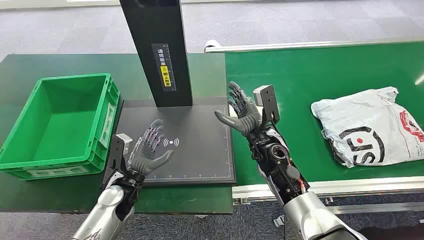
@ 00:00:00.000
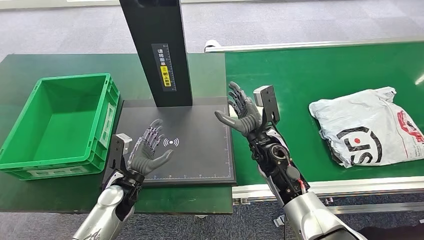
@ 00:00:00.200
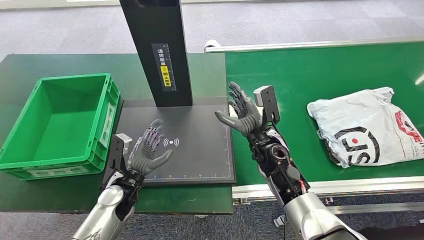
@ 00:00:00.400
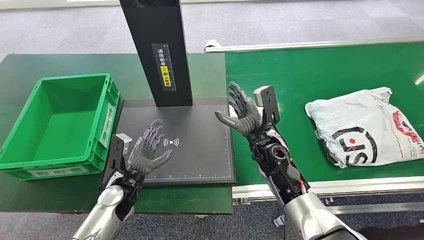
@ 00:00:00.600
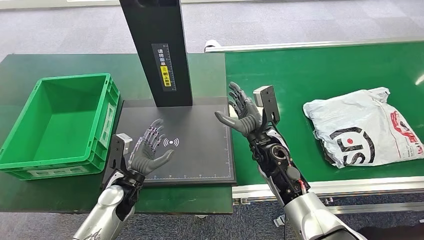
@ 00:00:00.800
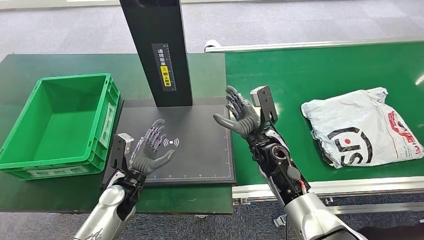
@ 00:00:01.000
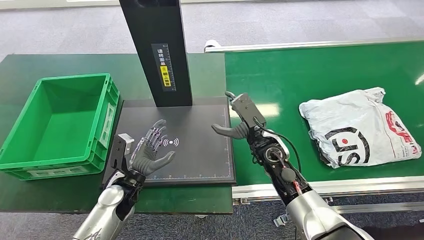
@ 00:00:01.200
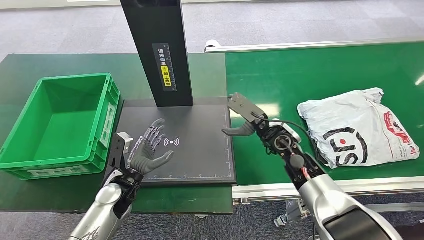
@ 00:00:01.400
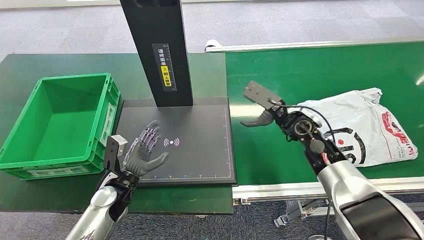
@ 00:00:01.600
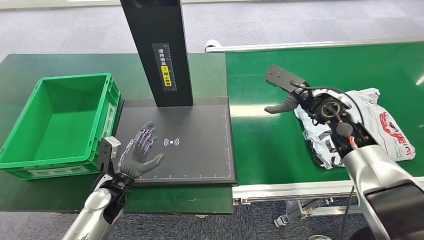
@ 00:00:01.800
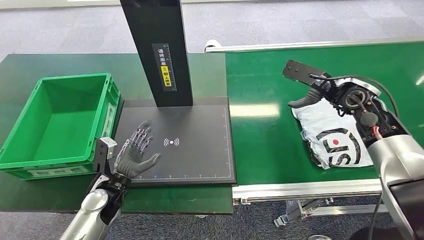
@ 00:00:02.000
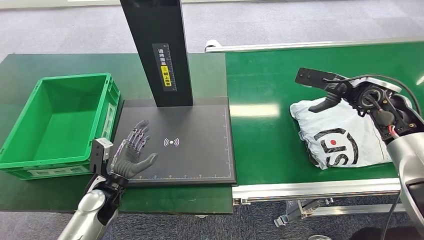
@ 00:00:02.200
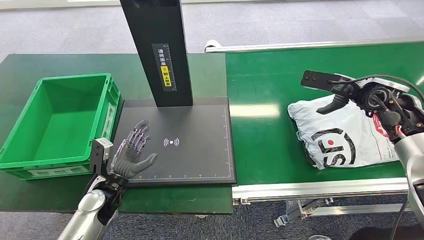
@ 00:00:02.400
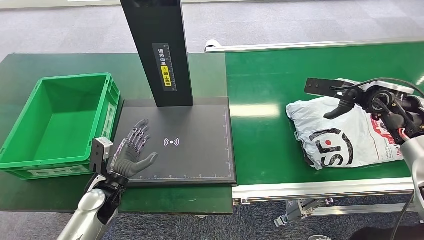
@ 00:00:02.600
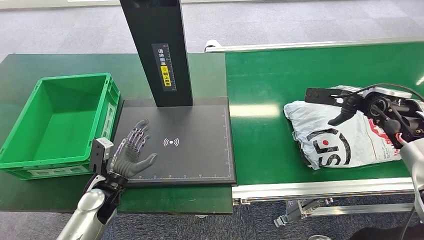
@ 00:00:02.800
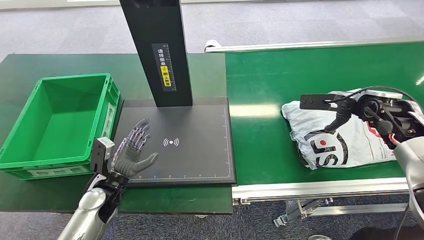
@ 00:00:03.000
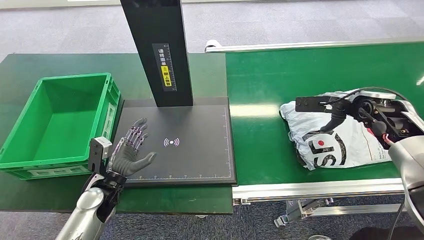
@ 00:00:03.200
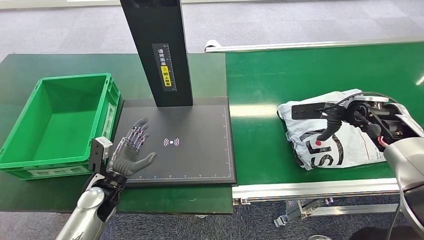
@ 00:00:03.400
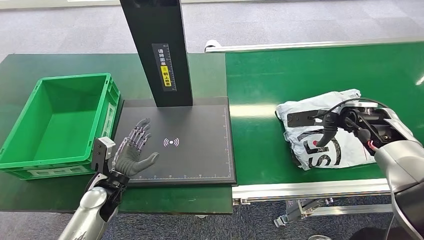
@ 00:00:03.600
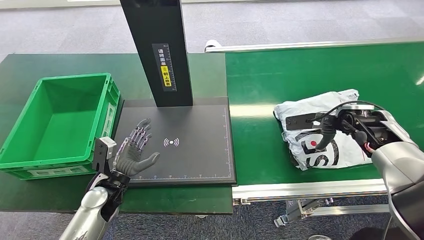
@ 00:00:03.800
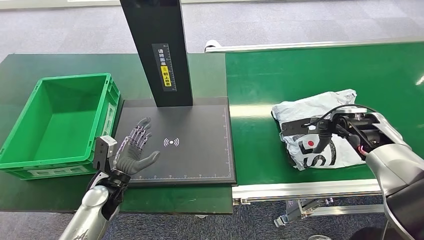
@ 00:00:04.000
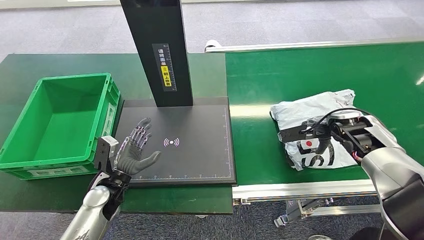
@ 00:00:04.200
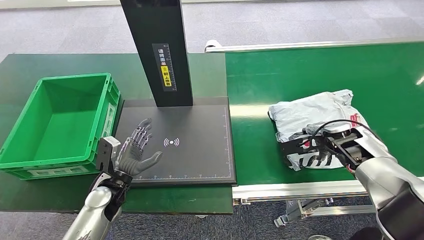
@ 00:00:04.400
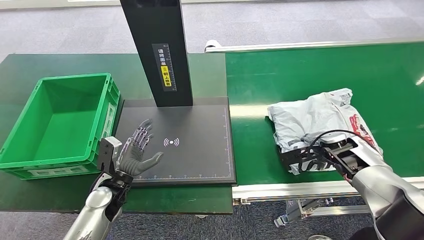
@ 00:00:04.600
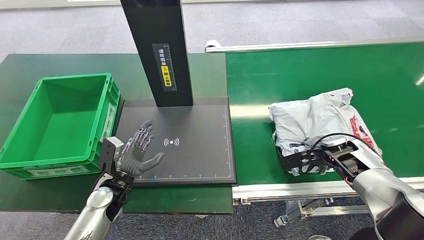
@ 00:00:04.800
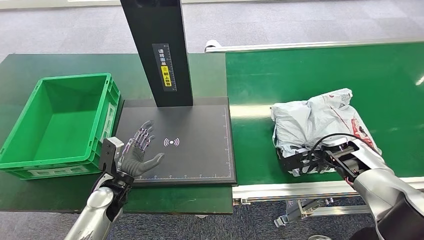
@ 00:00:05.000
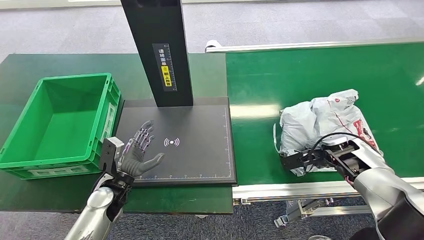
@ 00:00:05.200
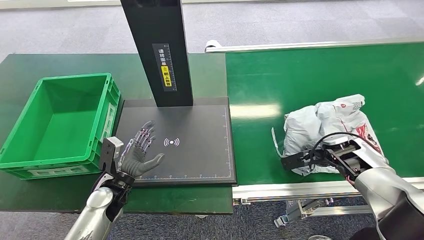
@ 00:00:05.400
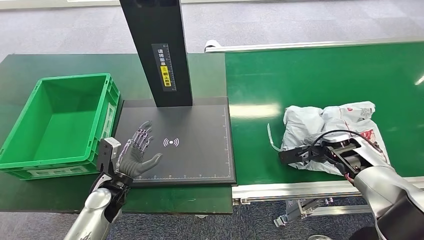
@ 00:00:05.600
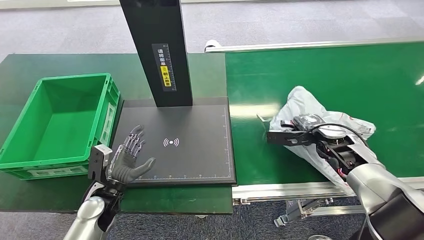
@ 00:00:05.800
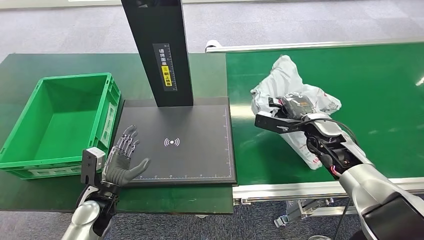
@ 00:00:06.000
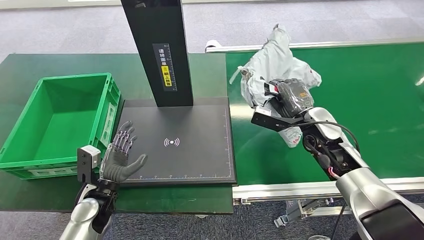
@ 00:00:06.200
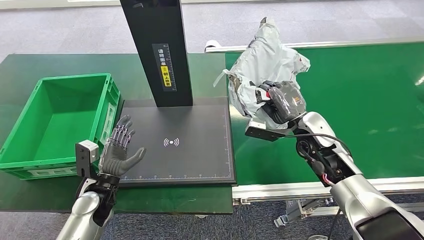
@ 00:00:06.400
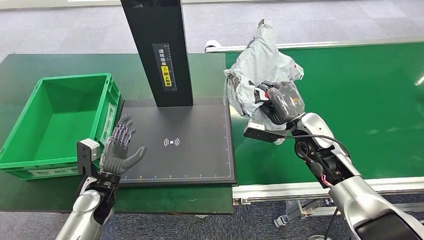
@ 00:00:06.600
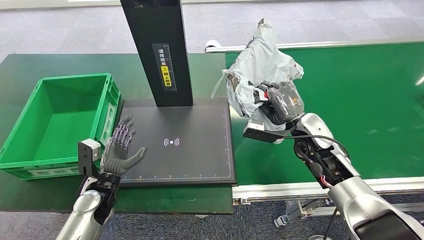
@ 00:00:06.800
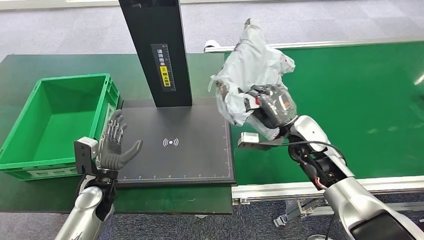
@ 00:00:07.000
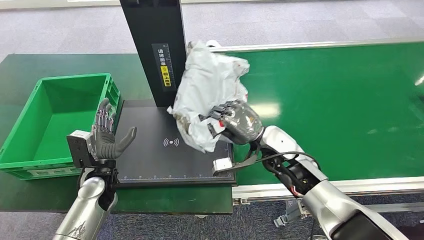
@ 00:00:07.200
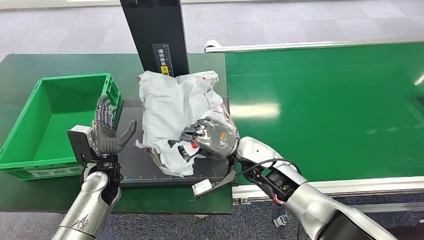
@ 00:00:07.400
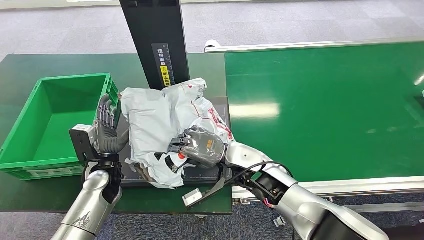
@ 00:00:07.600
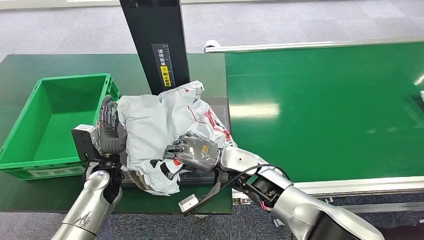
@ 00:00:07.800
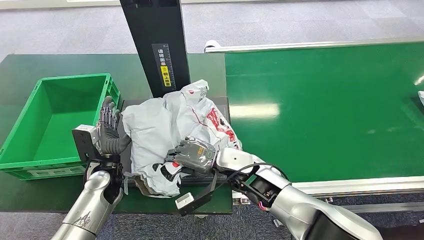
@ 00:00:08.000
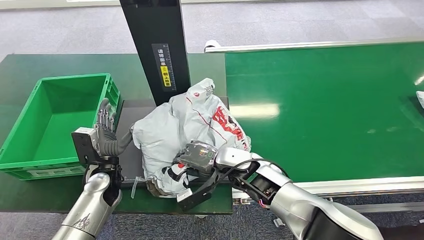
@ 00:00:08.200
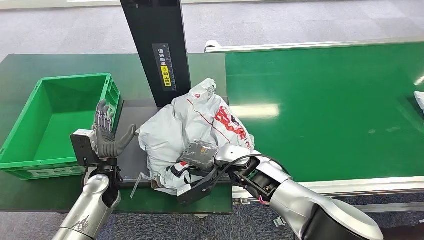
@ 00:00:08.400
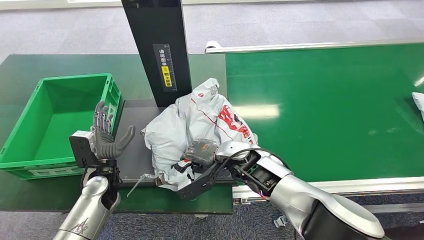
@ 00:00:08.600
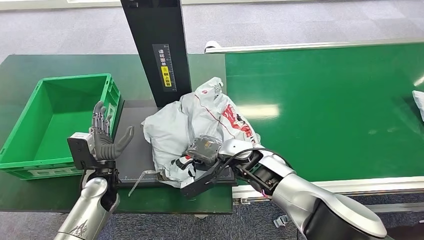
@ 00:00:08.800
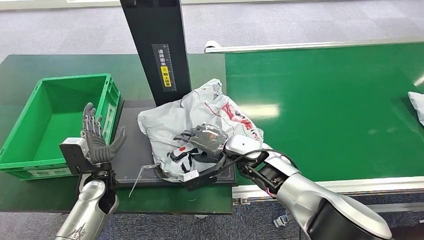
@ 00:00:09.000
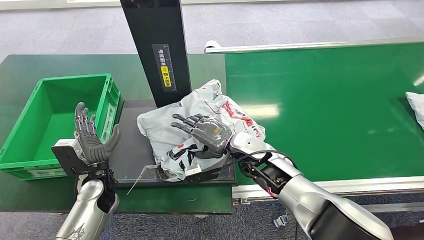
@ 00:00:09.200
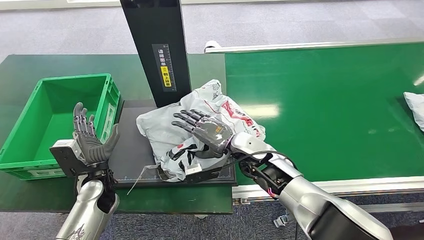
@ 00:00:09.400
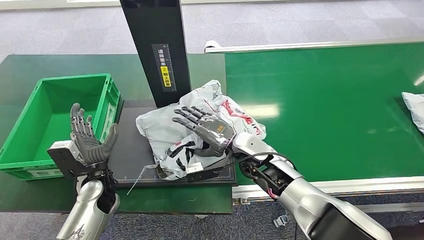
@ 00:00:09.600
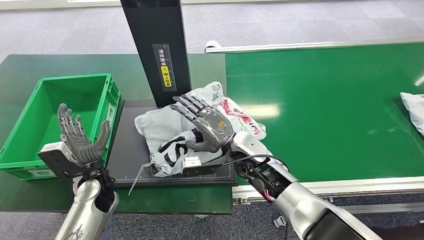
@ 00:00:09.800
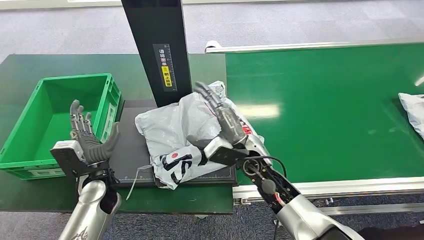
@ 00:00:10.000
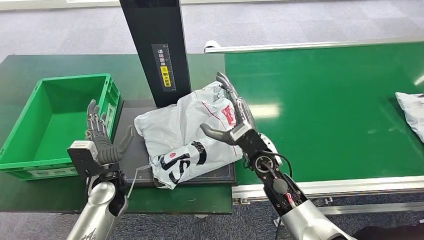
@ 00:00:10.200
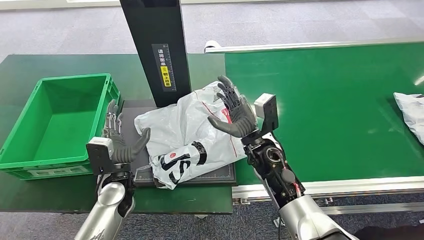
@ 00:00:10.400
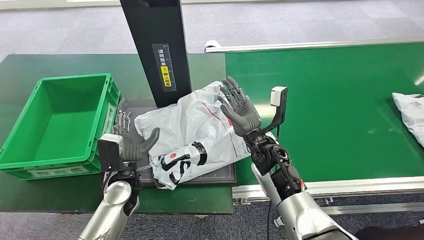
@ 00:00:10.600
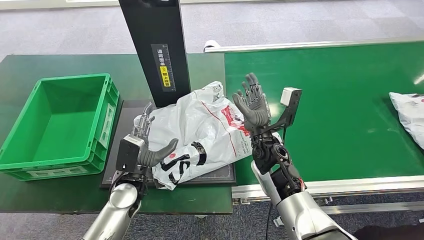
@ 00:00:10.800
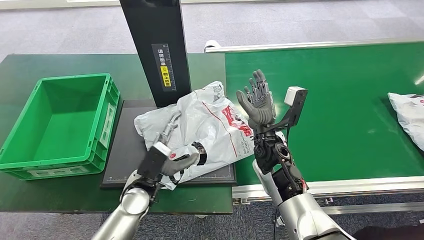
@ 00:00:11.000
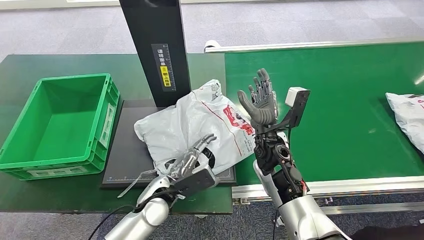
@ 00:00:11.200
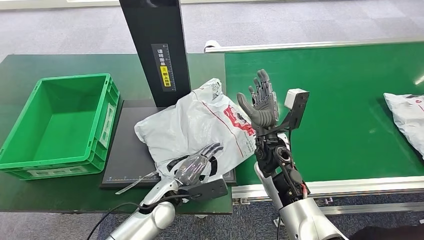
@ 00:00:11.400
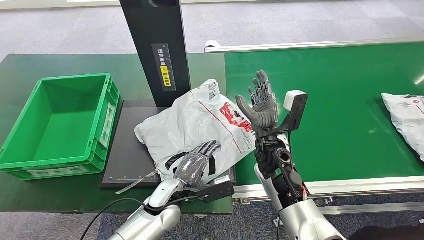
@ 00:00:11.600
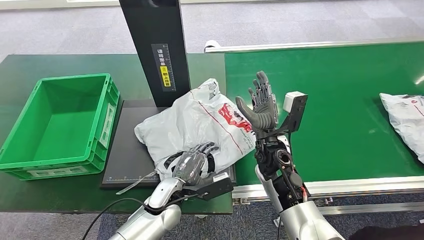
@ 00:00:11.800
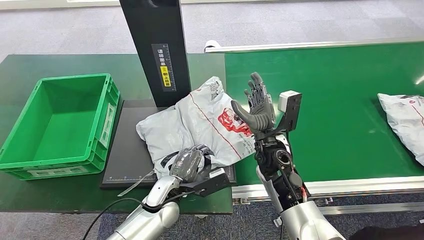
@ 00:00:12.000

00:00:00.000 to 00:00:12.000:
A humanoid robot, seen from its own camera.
Step, 00:00:00.000 to 00:00:06.600: Pick up the package from the conveyor belt.
Step, 00:00:06.800 to 00:00:10.400: Place the package onto the inbound machine.
00:00:01.600 to 00:00:03.000: The right hand travels to the right and upward by roughly 20 cm.
00:00:03.000 to 00:00:04.400: The right hand moves downward, some 10 cm.
00:00:04.400 to 00:00:06.000: The right hand goes roughly 5 cm to the left.
00:00:09.000 to 00:00:10.400: The left hand goes some 5 cm to the right.
00:00:10.400 to 00:00:12.000: The left hand shifts approximately 10 cm to the right.

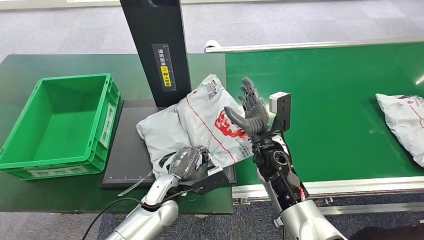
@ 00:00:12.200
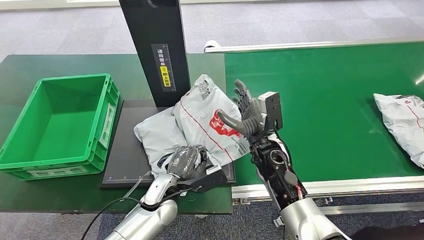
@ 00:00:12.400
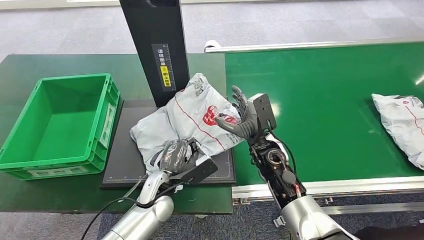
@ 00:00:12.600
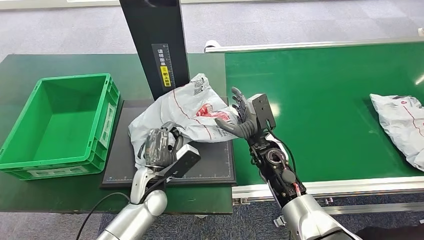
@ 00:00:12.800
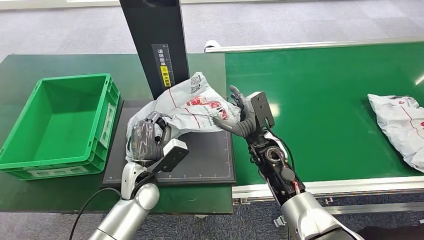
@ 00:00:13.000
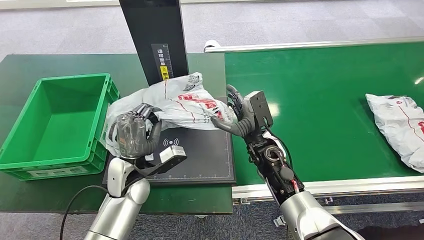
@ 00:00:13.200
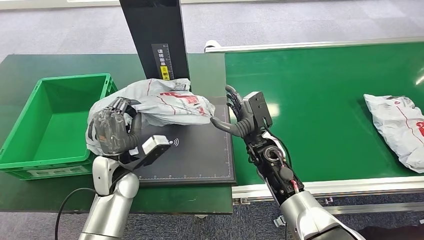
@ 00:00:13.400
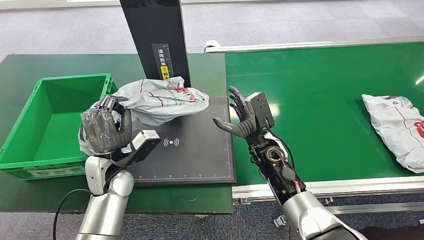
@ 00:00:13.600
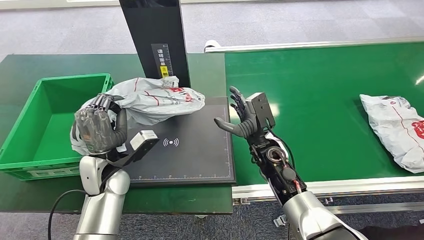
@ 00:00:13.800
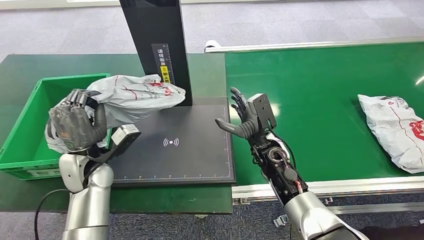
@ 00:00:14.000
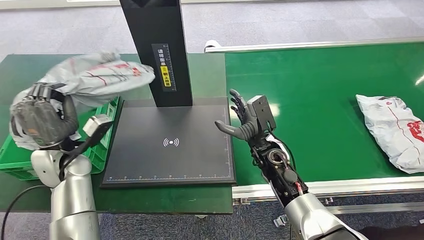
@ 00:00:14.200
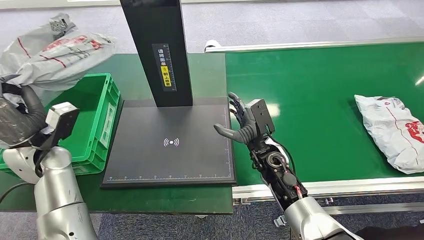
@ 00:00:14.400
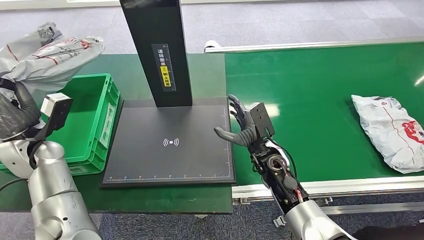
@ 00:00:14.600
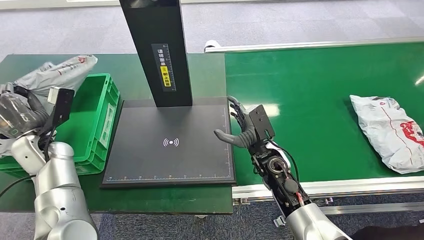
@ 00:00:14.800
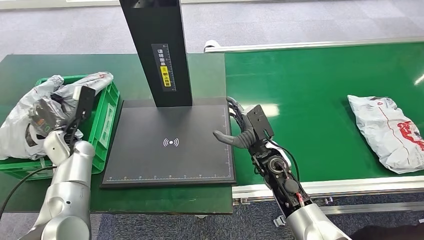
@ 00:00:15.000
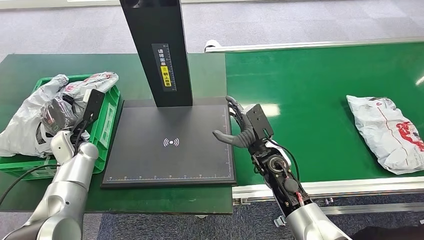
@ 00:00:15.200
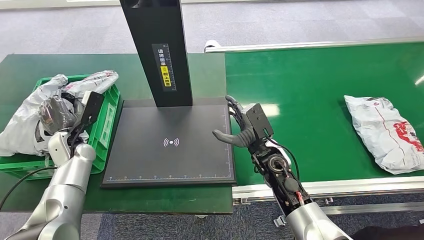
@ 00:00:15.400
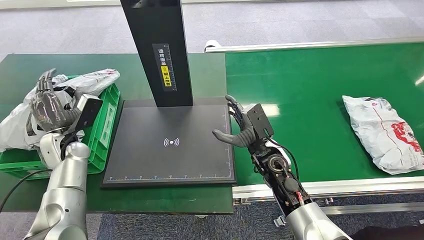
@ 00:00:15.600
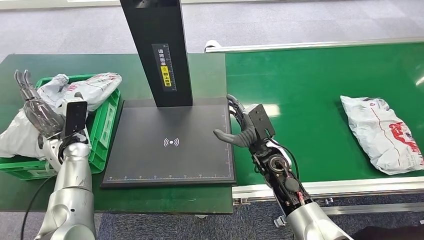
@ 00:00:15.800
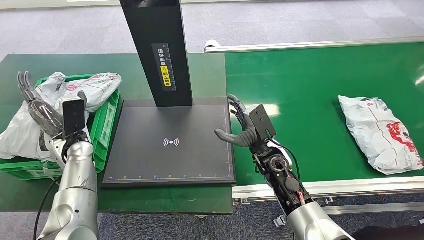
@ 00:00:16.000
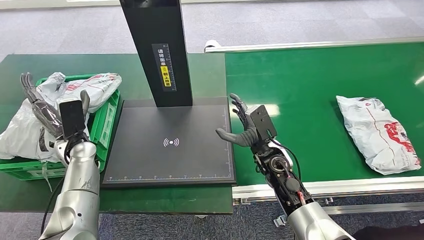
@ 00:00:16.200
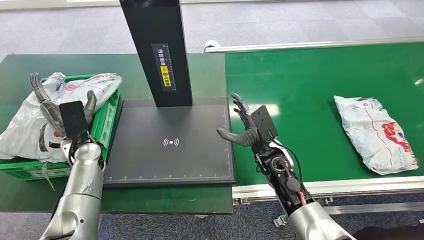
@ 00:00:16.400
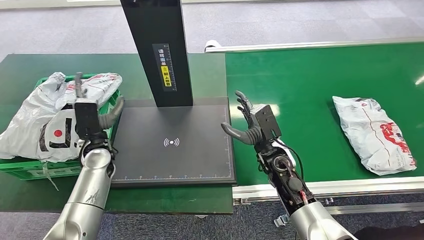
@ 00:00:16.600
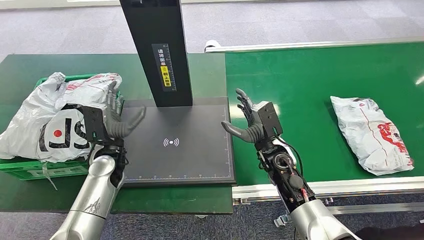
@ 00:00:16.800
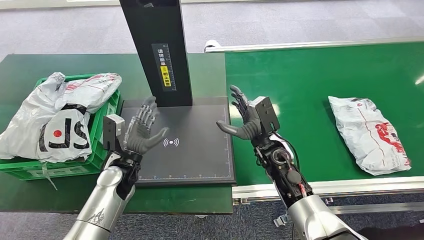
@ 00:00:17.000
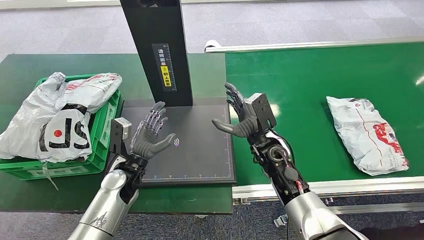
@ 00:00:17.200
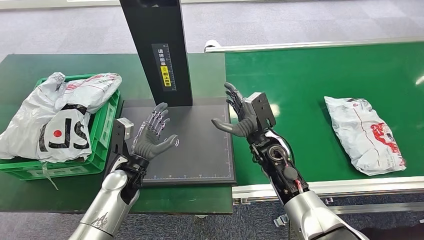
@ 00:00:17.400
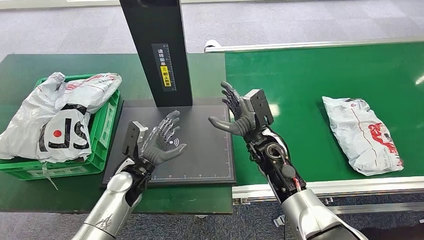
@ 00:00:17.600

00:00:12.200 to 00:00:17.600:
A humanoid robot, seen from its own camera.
Step, 00:00:12.200 to 00:00:14.000: Pick up the package from the inbound machine.
Step, 00:00:14.400 to 00:00:17.600: Place the package into the parcel locker.
00:00:16.200 to 00:00:17.600: The left hand is displaced to the right, backward and downward by roughly 15 cm.
